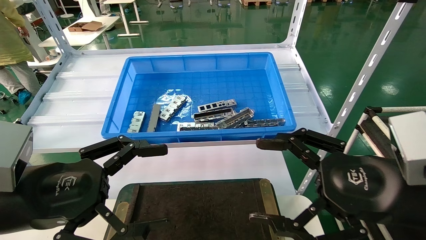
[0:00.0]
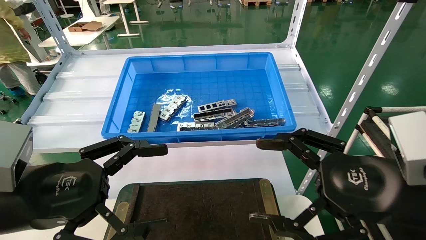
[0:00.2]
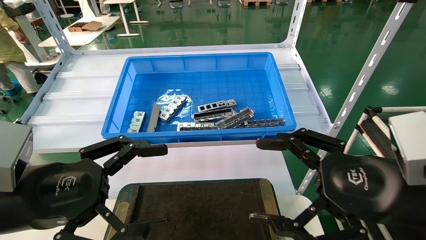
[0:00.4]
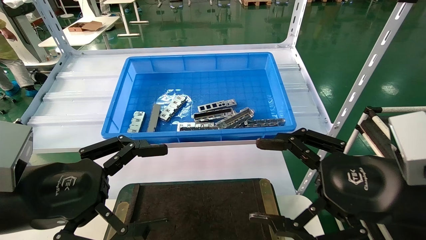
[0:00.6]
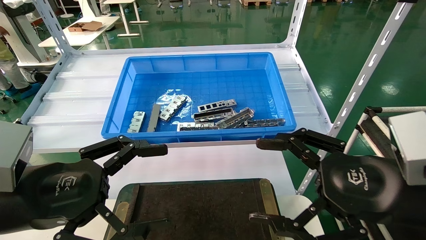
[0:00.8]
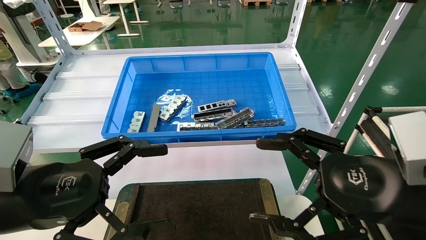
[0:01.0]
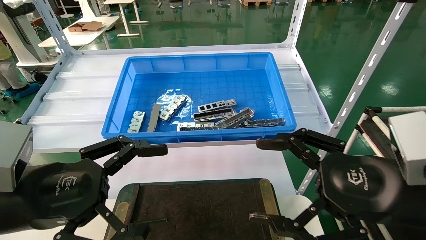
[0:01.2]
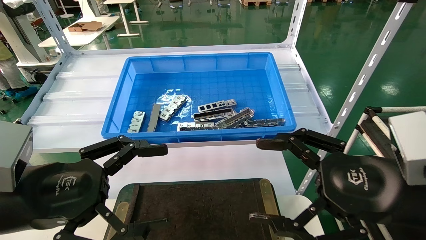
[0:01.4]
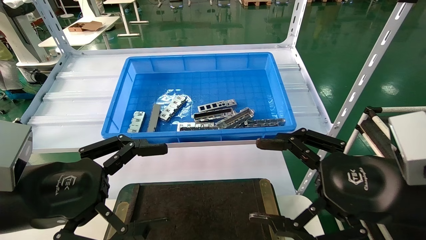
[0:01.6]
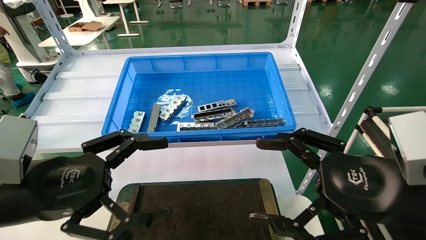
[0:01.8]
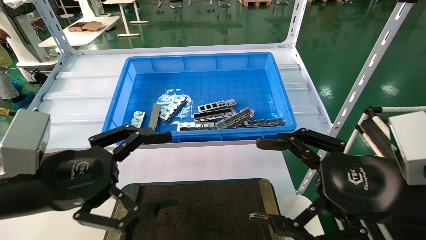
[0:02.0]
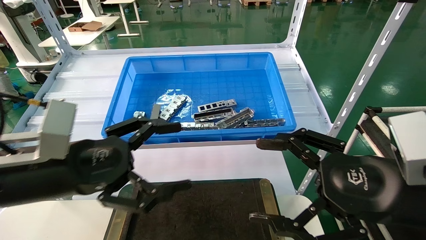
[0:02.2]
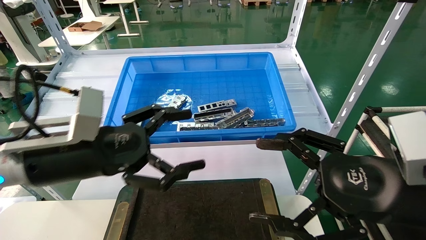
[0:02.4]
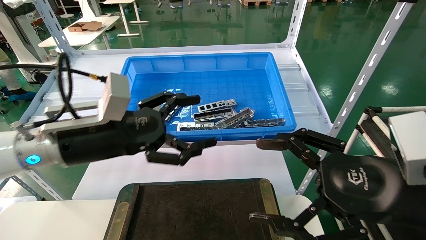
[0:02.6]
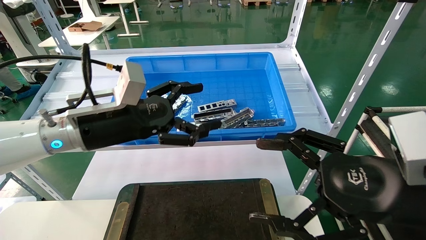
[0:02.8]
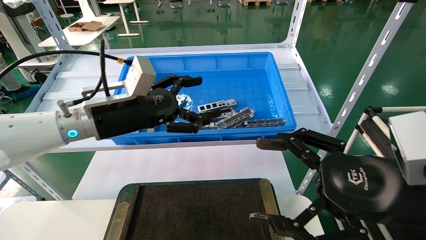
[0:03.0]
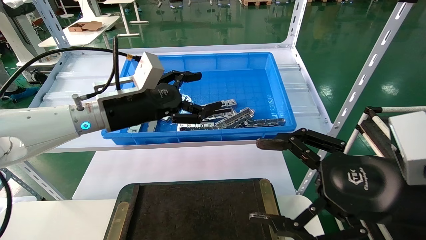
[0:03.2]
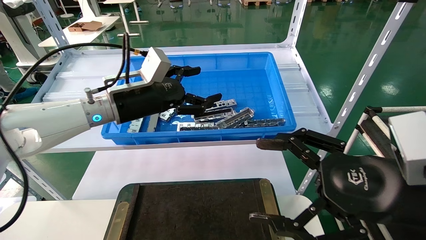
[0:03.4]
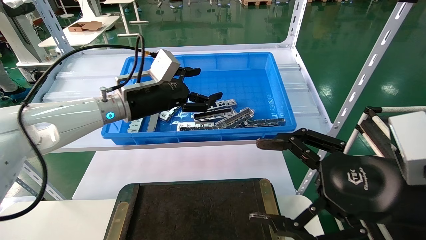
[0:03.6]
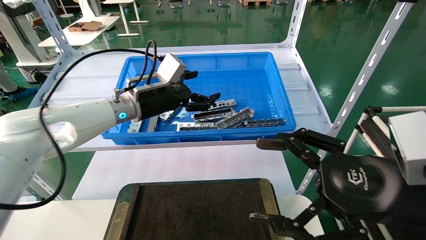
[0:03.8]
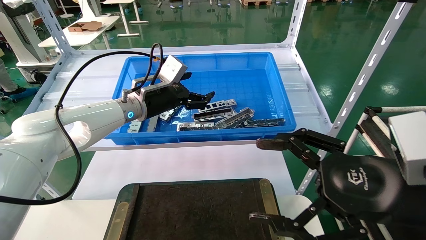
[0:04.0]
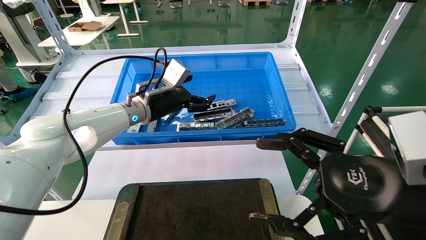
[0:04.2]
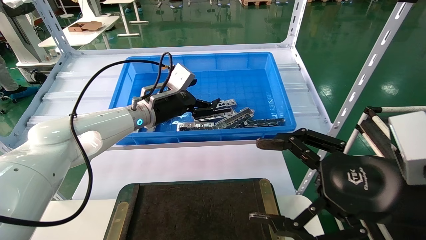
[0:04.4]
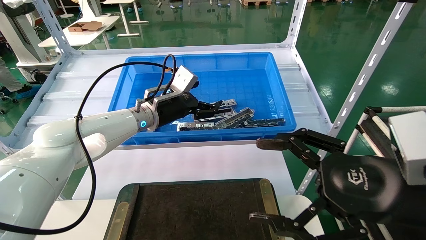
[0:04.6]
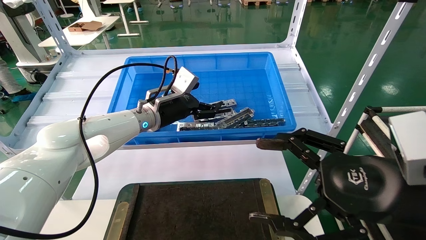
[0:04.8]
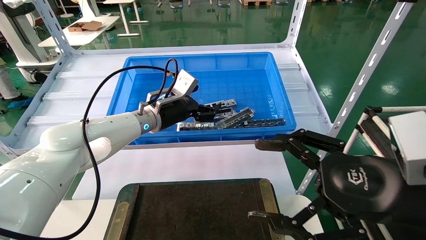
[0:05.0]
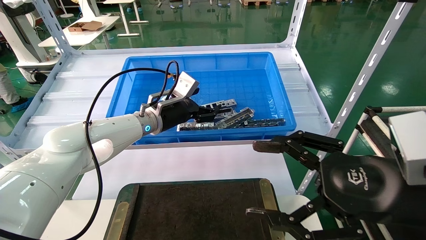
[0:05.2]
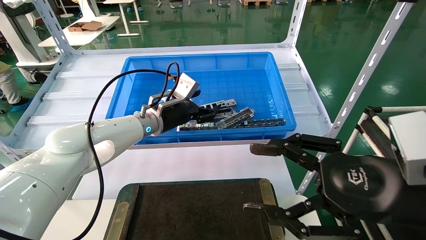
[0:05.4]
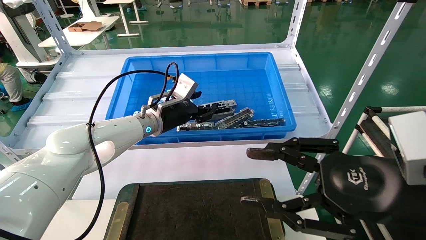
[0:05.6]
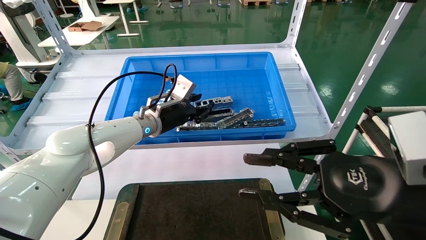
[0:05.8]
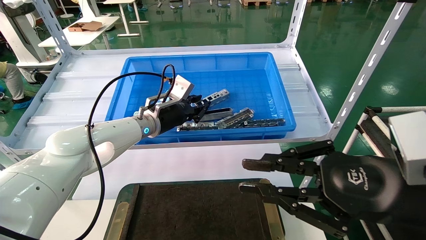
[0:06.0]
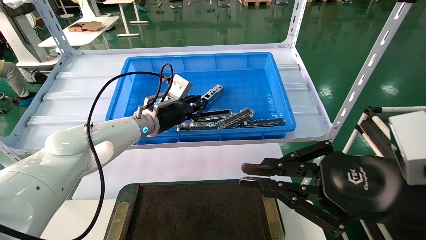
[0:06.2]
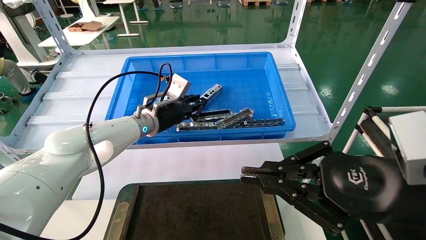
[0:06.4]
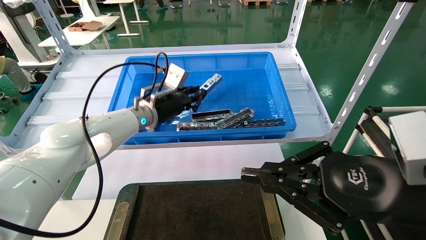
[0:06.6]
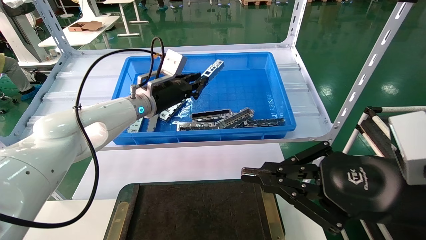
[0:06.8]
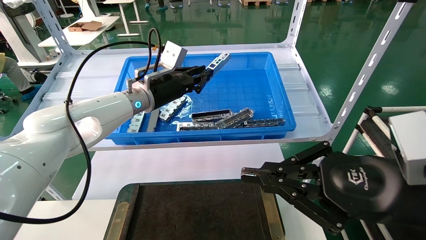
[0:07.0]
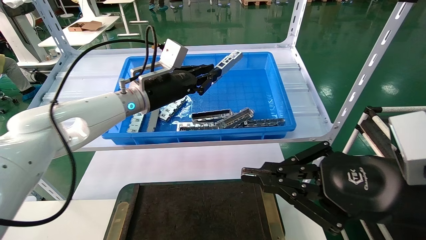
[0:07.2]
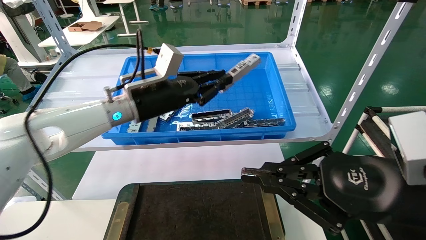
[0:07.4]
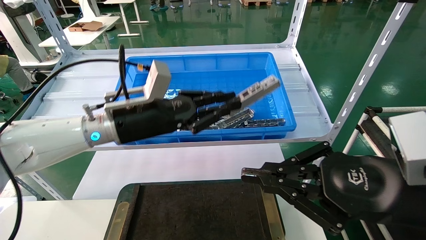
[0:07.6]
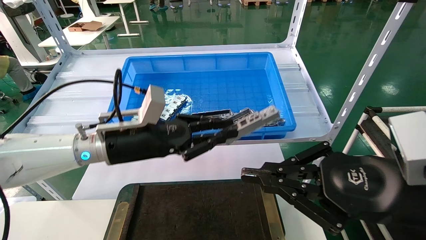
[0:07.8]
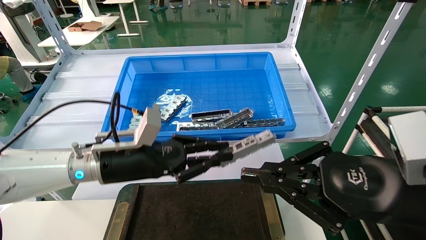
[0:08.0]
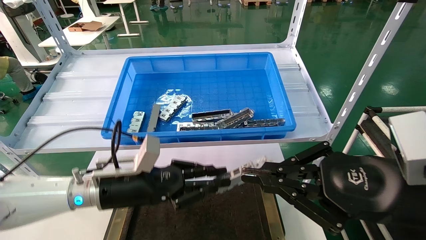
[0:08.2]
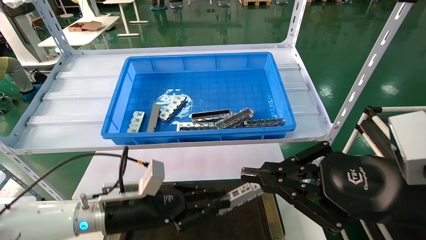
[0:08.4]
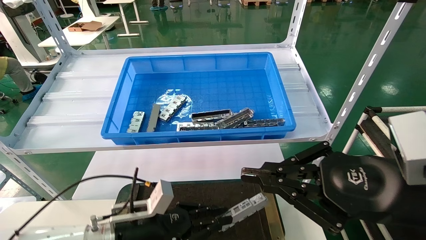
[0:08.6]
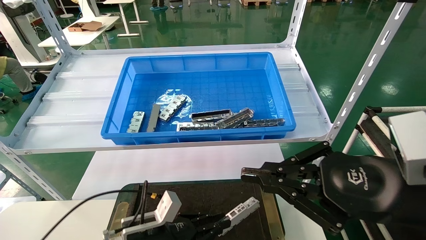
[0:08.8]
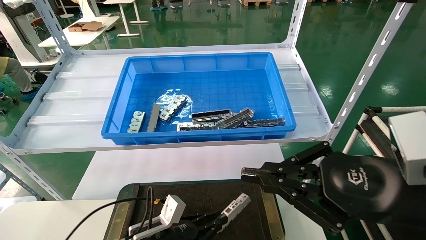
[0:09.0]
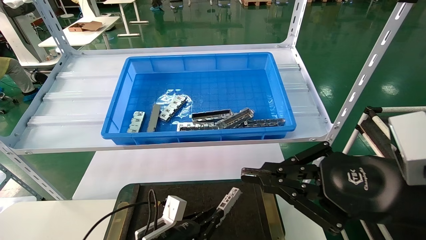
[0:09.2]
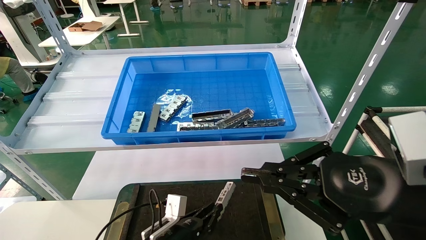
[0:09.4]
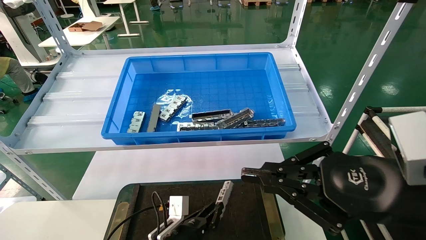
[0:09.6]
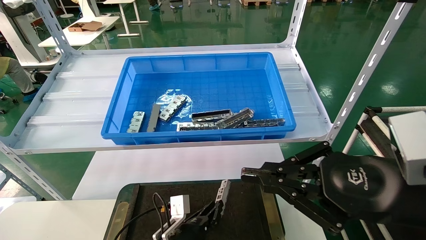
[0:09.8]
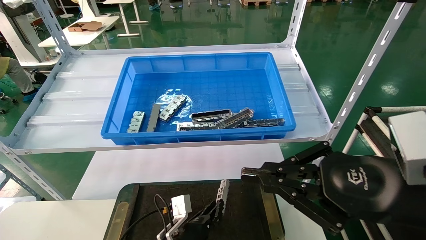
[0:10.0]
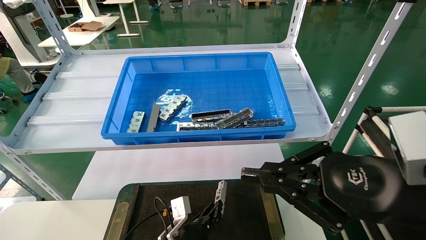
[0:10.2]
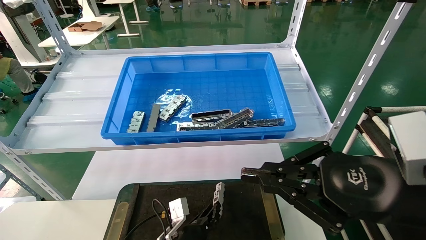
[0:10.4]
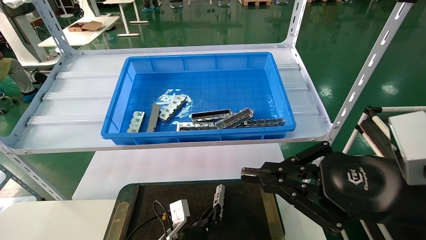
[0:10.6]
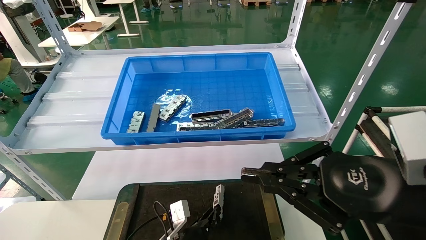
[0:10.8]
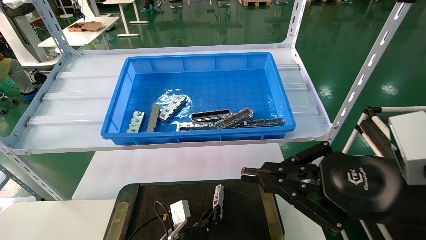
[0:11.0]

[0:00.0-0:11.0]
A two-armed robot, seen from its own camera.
Task of the whole recording: Grasp the part with one hand and place it on the black container.
Step, 0:02.0 to 0:06.0: Pick up the front USB bracket from the feeding area.
0:00.0 to 0:01.6: Both grippers stay about where they are.
0:01.6 to 0:03.2: The left gripper travels forward by some 20 cm.
0:03.2 to 0:04.8: The left gripper is displaced forward and to the right by approximately 10 cm.
0:04.8 to 0:06.2: The right gripper closes, while the left gripper closes.
0:06.2 to 0:07.8: The left gripper travels backward by about 15 cm.
0:07.8 to 0:09.4: The left gripper goes about 25 cm downward.
0:09.4 to 0:11.0: The left gripper shifts by about 5 cm.

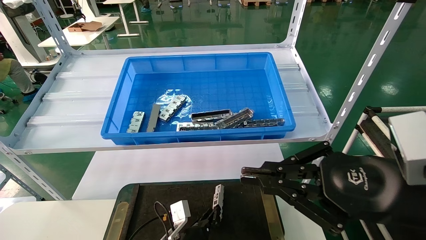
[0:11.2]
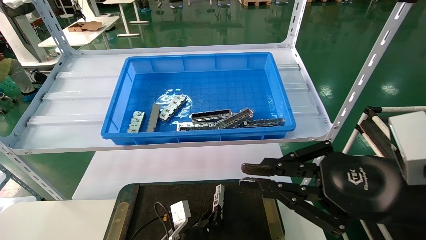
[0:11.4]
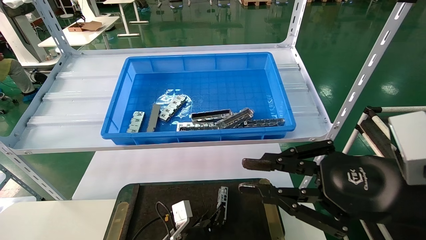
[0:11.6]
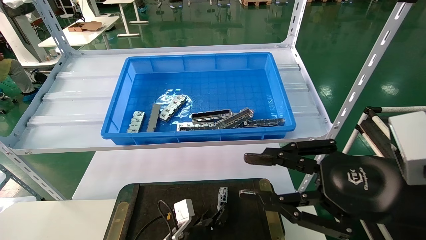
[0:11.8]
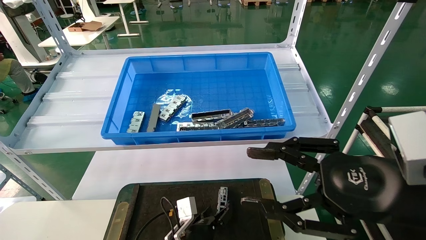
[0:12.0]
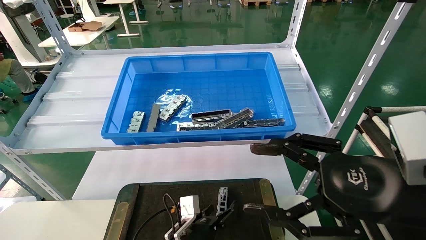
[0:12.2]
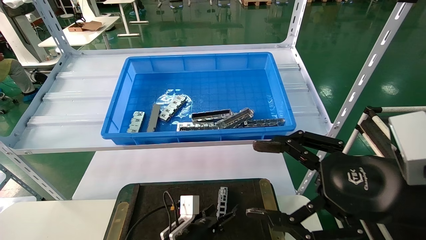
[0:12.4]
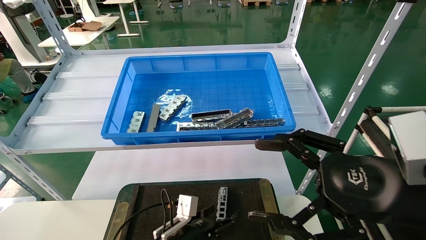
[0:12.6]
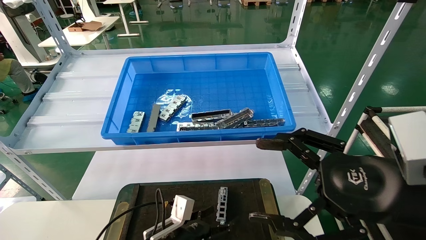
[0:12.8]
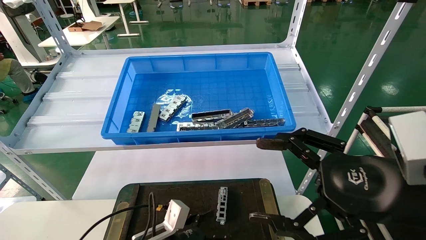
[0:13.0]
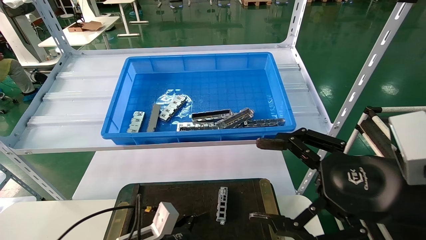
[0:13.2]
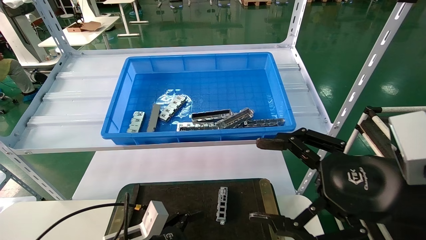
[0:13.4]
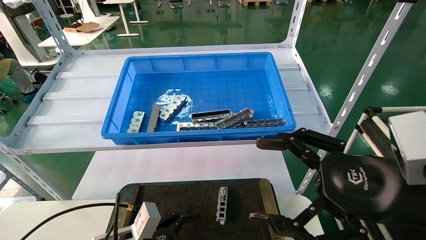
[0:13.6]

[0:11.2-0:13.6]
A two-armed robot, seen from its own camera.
Task of the whole recording: Grasp the part with one hand and place it on the black container.
0:11.2 to 0:12.4: The left gripper opens its fingers, while the right gripper opens.
0:12.4 to 0:13.6: The left gripper moves to the left, backward and upward, about 15 cm.
